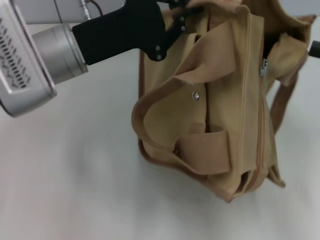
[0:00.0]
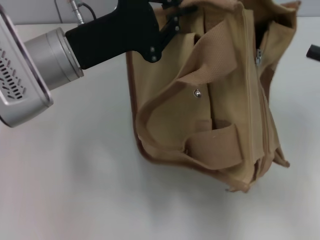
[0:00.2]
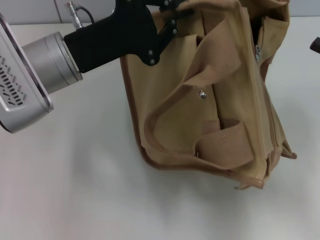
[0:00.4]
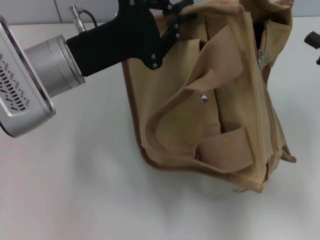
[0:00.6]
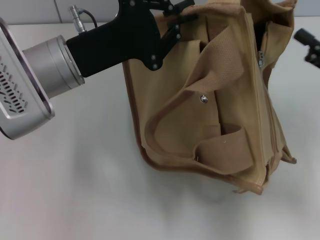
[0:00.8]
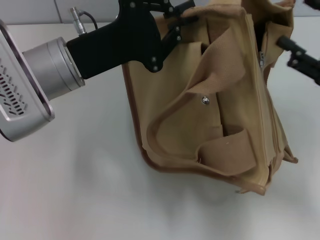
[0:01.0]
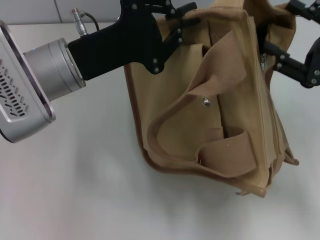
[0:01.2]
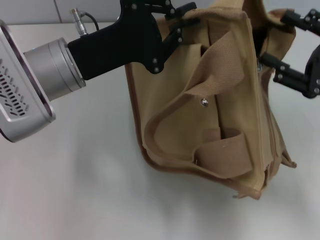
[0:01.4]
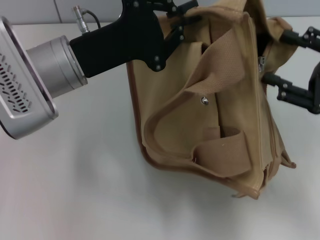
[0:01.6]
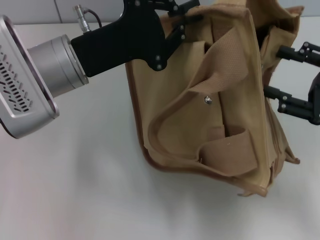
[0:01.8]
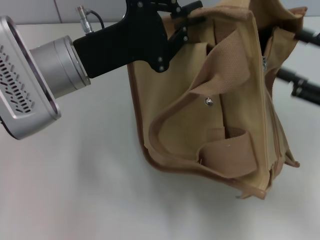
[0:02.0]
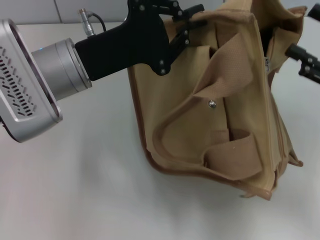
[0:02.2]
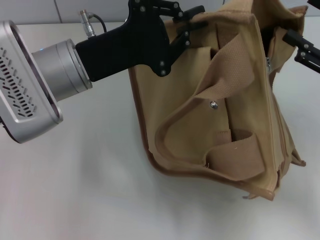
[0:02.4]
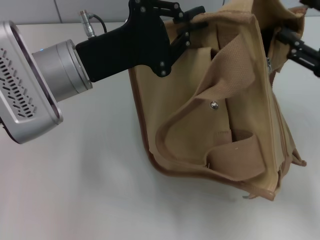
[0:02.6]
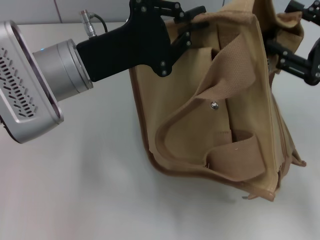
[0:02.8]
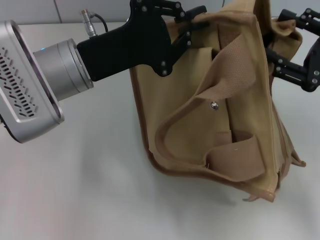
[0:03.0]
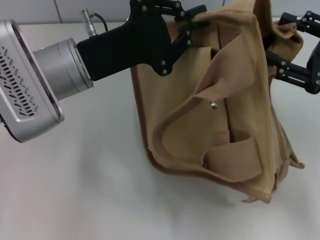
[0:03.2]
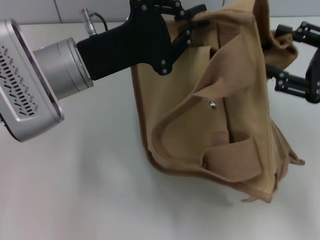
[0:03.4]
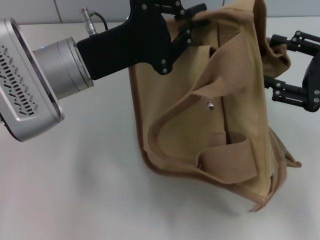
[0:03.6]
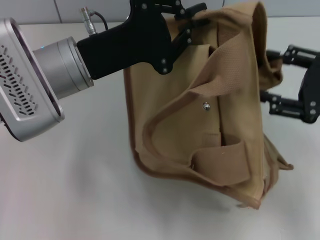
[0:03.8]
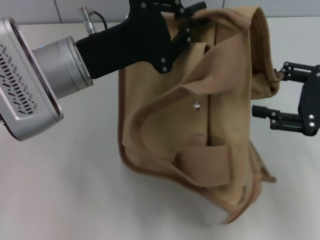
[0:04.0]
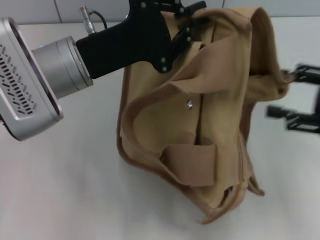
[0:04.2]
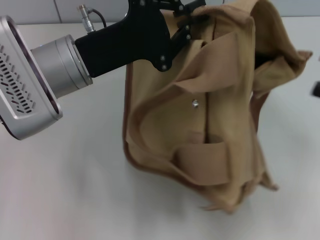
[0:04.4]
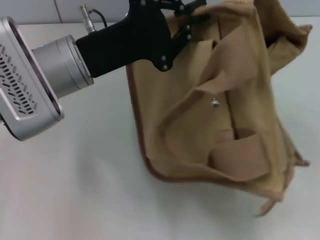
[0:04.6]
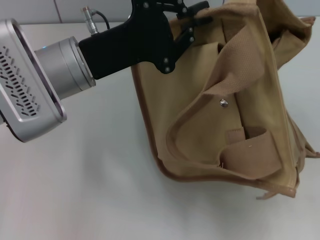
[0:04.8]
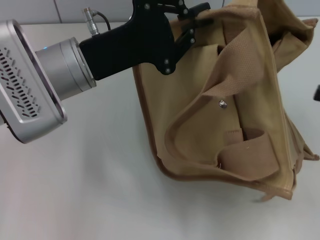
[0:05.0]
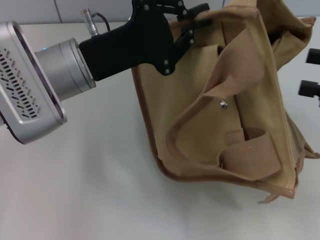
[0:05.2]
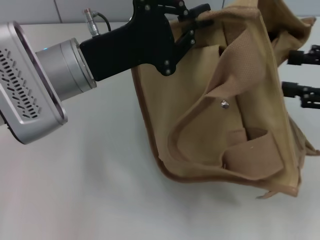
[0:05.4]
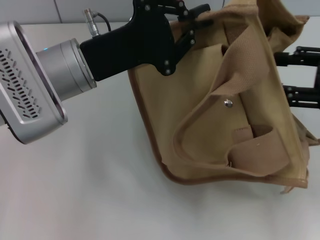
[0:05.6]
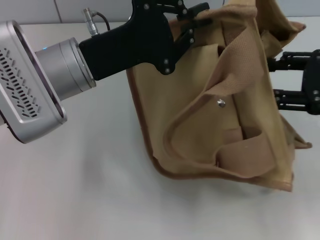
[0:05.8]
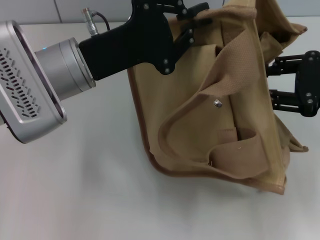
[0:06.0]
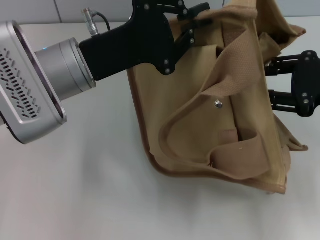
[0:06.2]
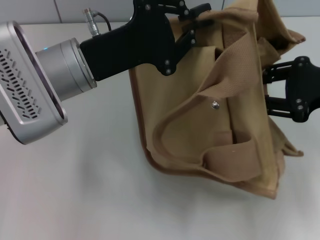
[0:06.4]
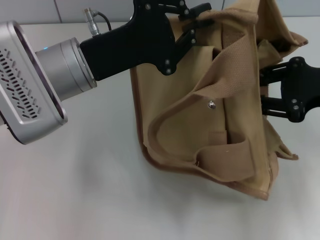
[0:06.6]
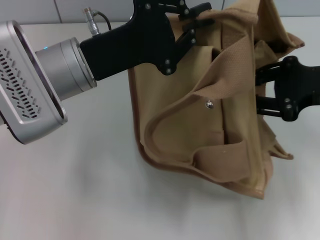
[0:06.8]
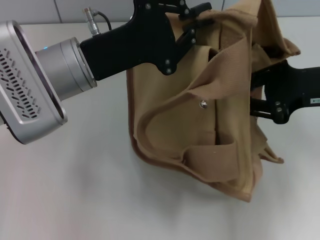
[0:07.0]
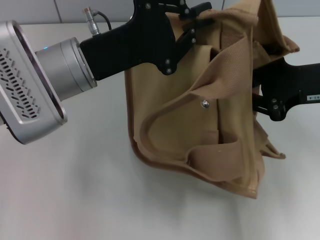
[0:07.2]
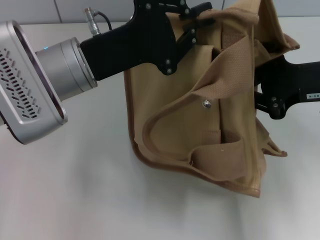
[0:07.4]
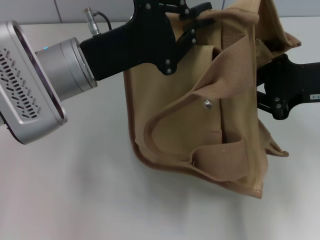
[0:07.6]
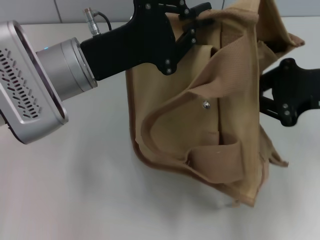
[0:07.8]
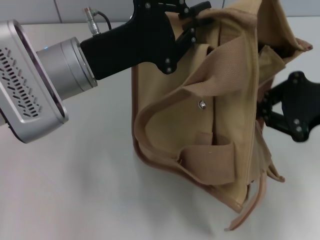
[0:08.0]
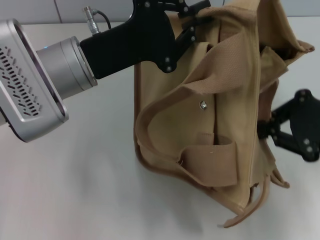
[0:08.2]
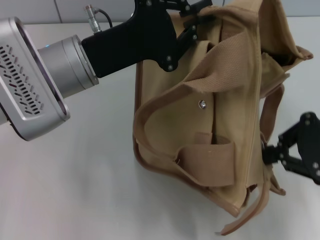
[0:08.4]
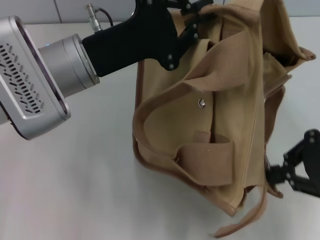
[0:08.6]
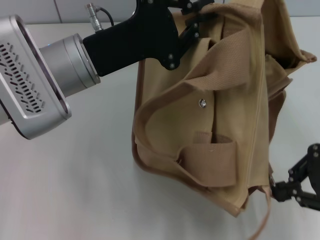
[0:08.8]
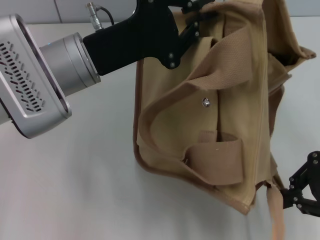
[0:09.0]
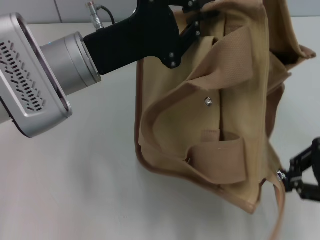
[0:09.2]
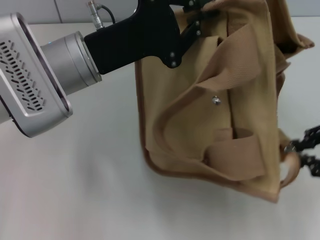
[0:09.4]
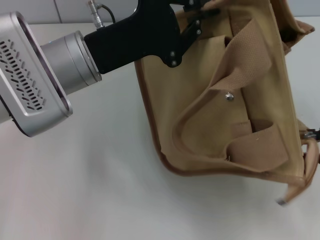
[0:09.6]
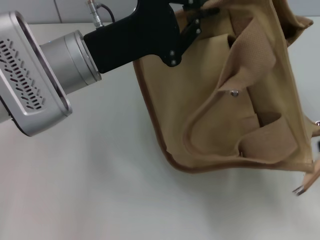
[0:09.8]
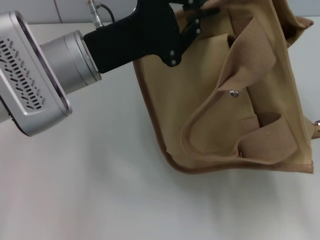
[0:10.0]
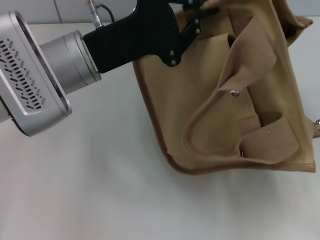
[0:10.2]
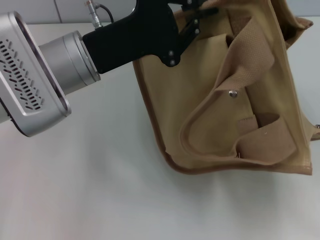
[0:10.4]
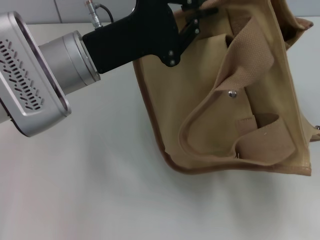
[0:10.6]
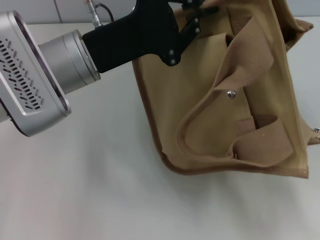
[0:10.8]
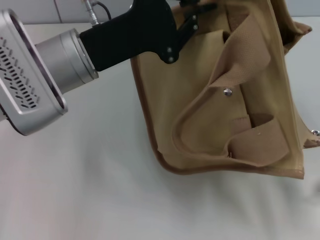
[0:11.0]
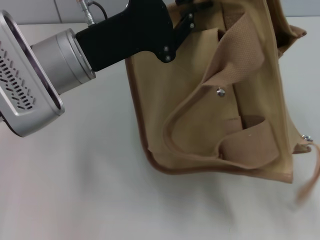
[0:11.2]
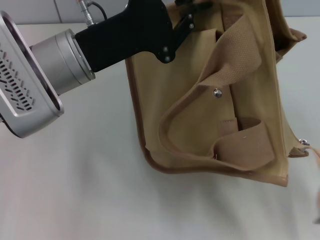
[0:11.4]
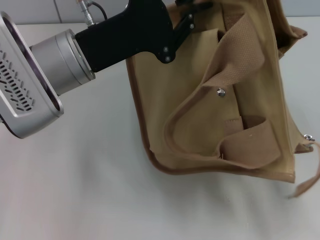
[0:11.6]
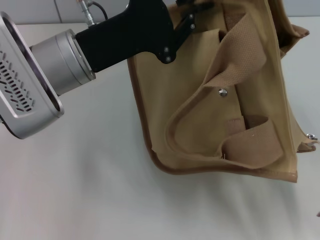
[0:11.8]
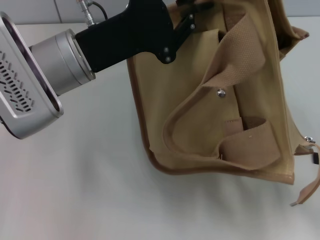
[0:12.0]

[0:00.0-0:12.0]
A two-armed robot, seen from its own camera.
Step, 0.0 to 11.2 s: Pull open the zipper with your right hand.
0.0 to 1.6 s: The right gripper shifts approximately 10 cm downward.
3.0 to 4.4 s: The right gripper travels to the right and backward by roughly 5 cm.
4.4 to 6.0 s: The right gripper is displaced forward and to the left by about 10 cm.
6.0 to 7.6 s: The right gripper closes its fingers.
7.6 to 9.0 s: The right gripper travels backward by roughly 5 cm.
9.0 to 10.4 s: The right gripper moves to the right, about 10 cm, and opens up.
10.4 to 12.0 s: The right gripper is displaced downward by some 5 cm.

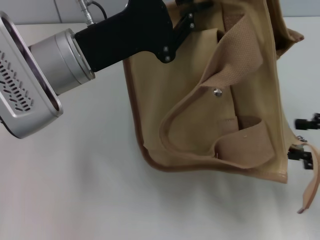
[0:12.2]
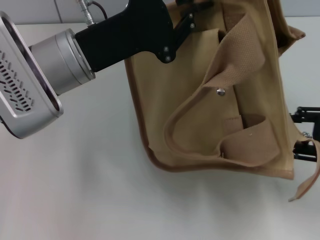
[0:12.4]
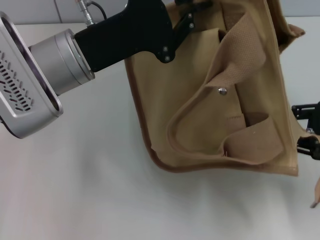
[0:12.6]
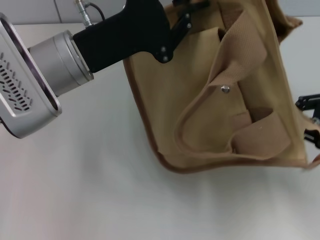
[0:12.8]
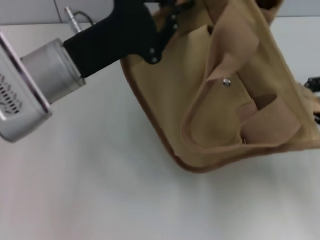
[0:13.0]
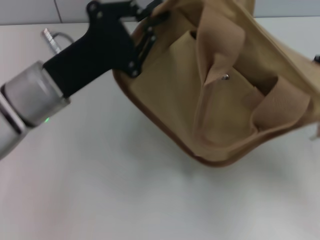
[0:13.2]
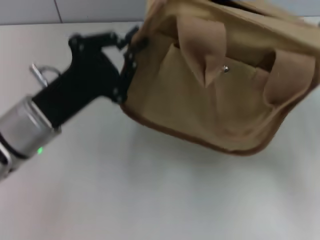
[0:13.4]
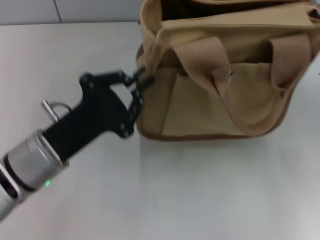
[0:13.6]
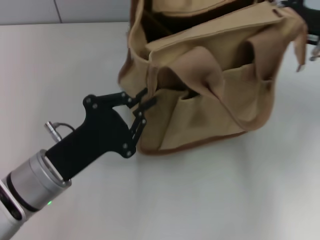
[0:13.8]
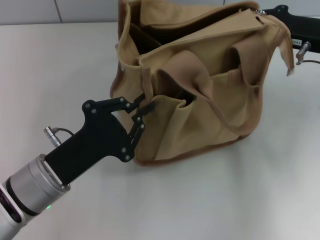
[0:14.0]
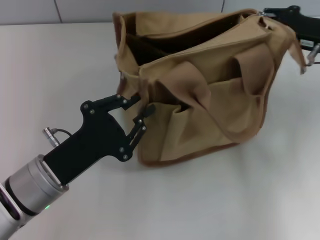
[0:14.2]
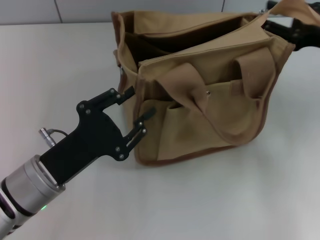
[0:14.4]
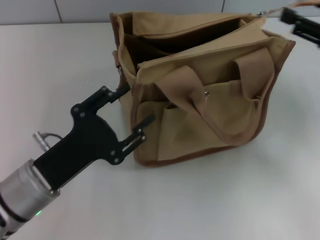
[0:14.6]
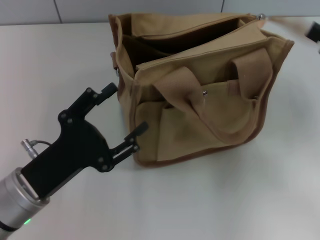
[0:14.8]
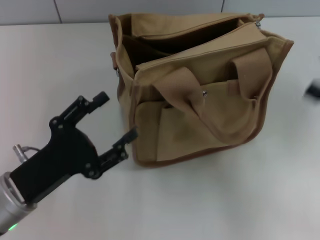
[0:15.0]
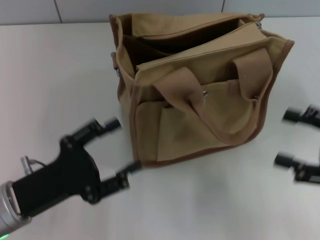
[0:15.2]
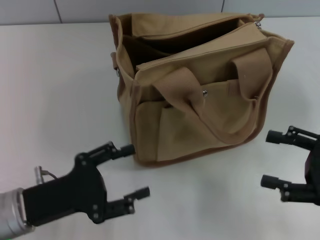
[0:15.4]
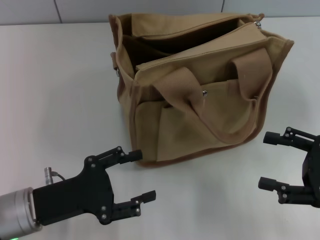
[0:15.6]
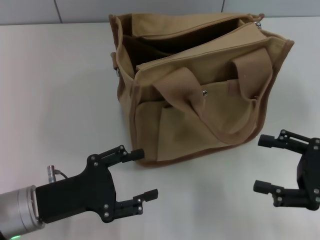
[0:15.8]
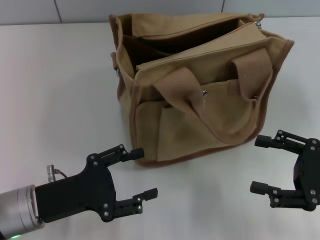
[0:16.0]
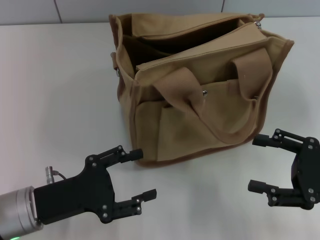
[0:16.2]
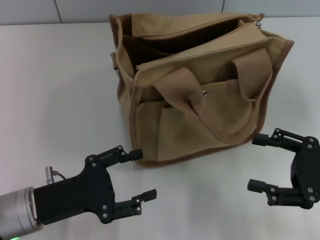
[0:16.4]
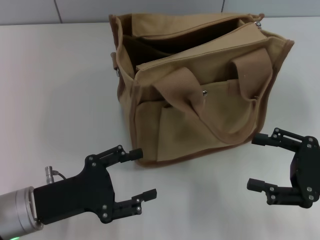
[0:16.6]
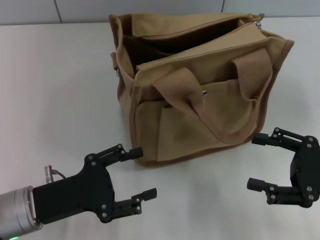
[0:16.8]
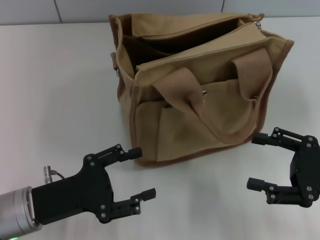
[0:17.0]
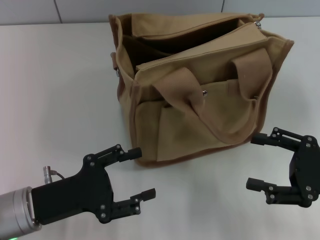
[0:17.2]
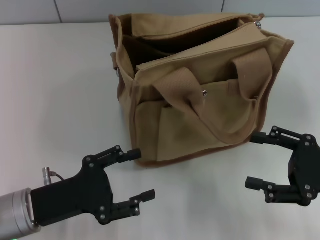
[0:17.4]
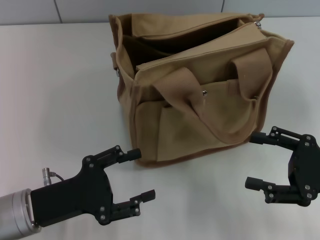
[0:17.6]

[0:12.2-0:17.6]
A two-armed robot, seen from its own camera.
Step, 12.2 to 14.8 s: Grab the bag with your left hand.
12.2 to 13.6 s: The right gripper moves forward and upward, approximately 10 cm, and closes, while the left gripper goes approximately 10 cm downward and backward.
13.6 to 15.0 s: The left gripper changes place by about 5 cm, and opens. The right gripper shifts about 10 cm backward, and opens up.
15.0 to 16.2 s: The right gripper is displaced downward by about 5 cm.
16.2 to 17.6 s: Both grippers stay about where they are.

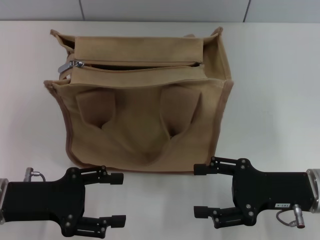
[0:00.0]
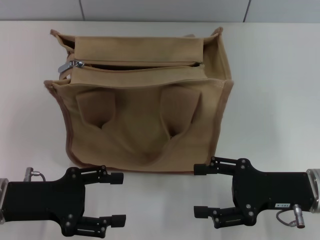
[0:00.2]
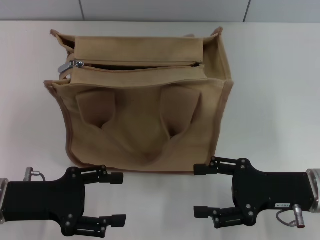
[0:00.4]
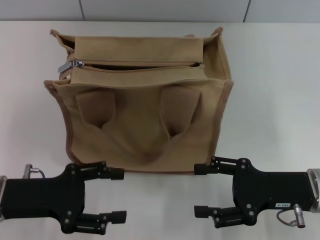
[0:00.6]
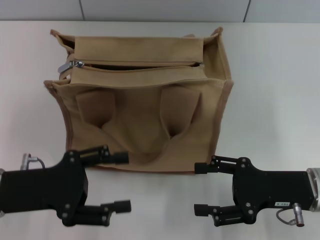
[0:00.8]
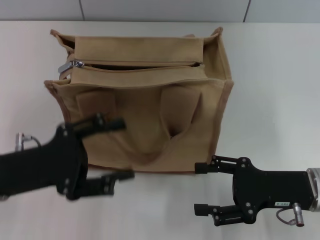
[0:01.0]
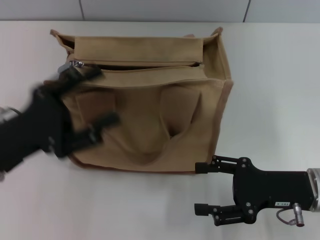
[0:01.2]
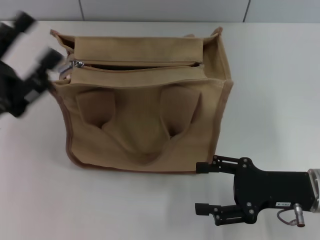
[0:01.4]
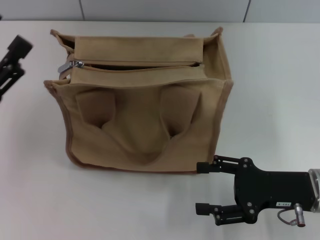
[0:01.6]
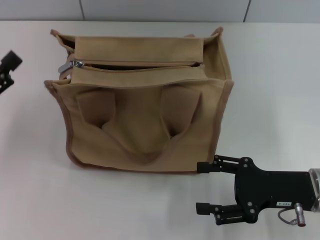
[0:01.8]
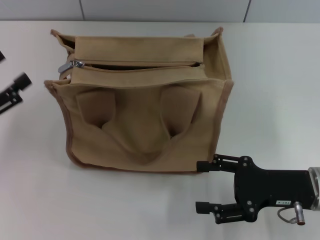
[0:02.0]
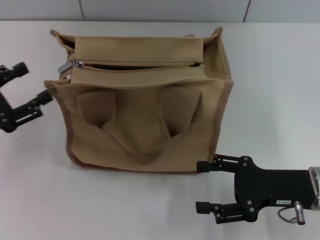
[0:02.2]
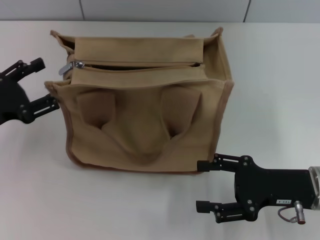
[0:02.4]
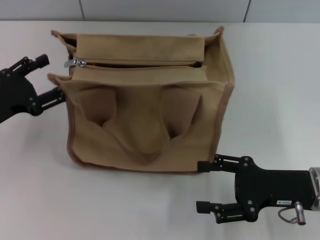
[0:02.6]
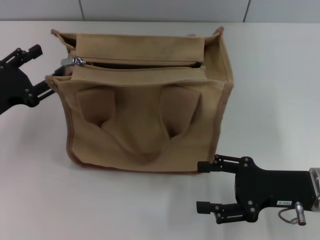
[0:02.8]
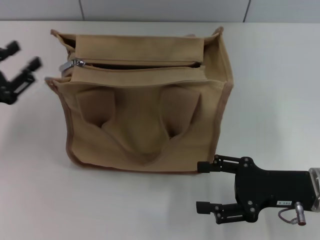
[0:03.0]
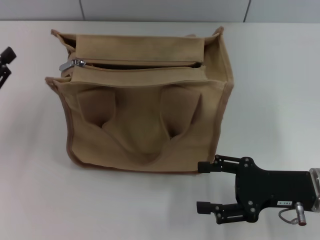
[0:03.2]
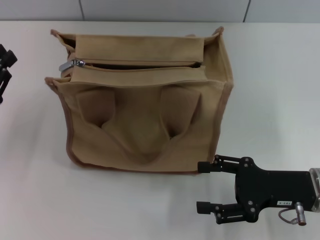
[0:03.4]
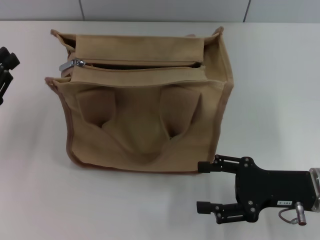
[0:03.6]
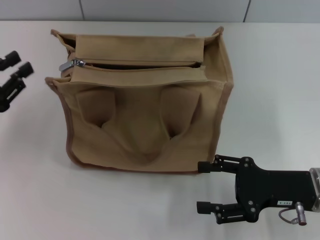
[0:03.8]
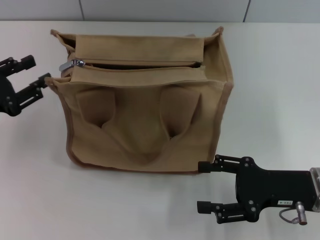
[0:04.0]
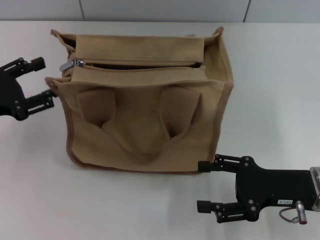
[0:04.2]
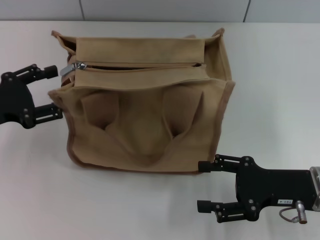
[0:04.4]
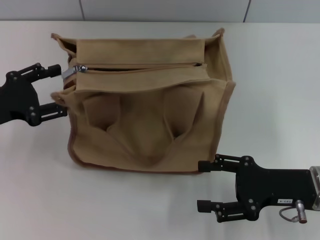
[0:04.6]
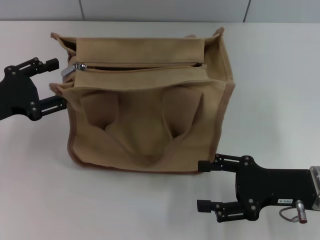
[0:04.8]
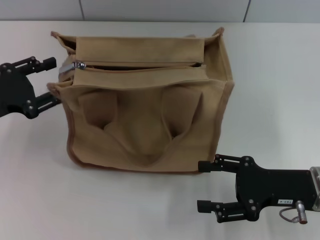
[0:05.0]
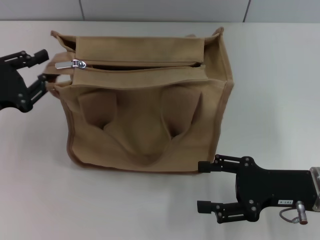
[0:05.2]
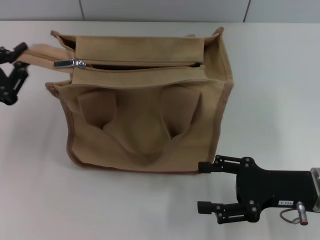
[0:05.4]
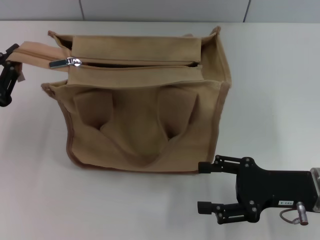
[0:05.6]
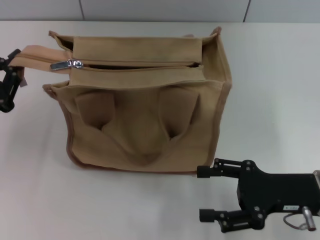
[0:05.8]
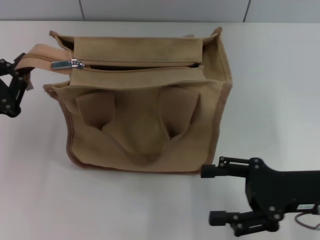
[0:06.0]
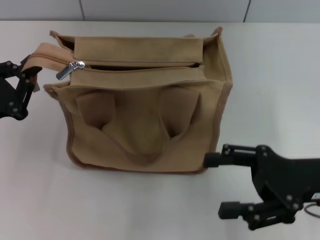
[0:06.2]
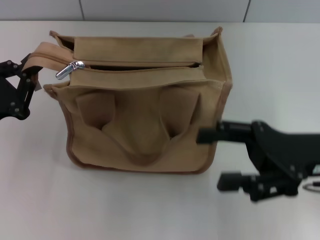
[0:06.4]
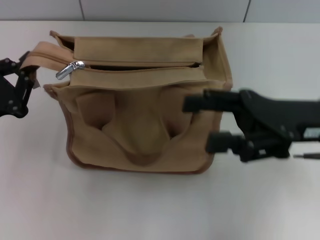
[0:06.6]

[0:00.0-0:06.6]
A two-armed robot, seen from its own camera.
0.0 to 1.6 s: The left gripper changes place by roughly 5 cm.
1.6 to 3.2 s: The left gripper shifts by roughly 5 cm.
3.2 to 5.0 s: The left gripper closes, then opens again.
5.0 to 6.6 s: The right gripper moves upward, about 10 cm, while the left gripper changes place by about 5 cm, and closes its fingers.
